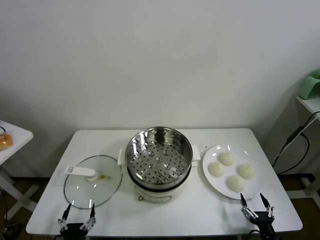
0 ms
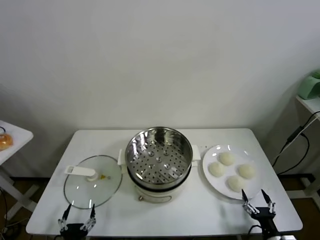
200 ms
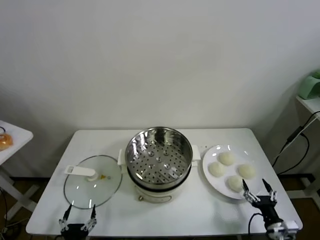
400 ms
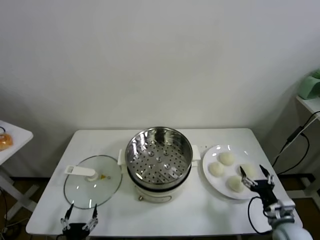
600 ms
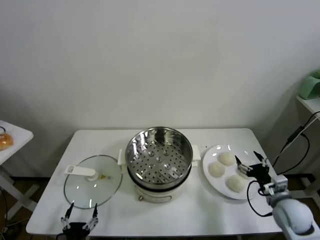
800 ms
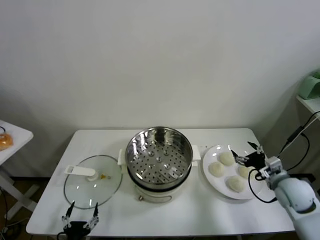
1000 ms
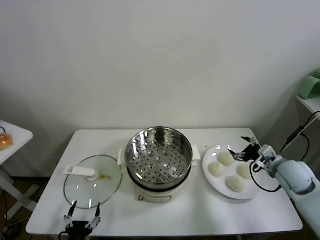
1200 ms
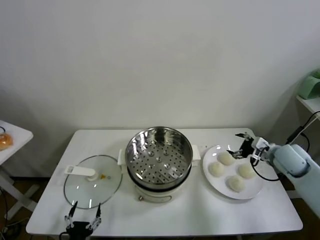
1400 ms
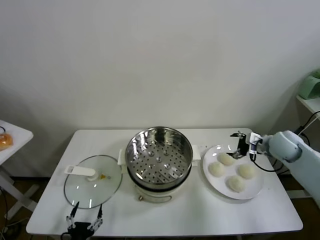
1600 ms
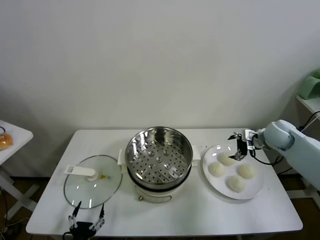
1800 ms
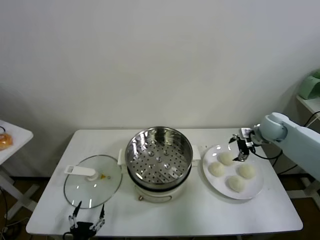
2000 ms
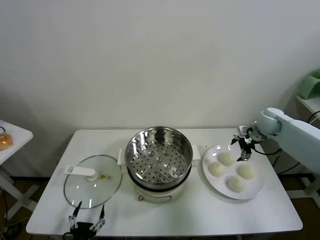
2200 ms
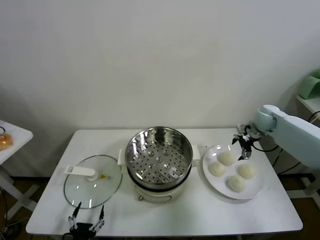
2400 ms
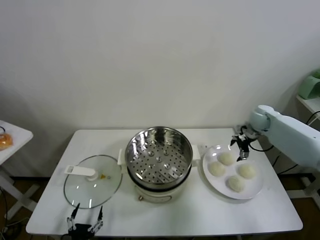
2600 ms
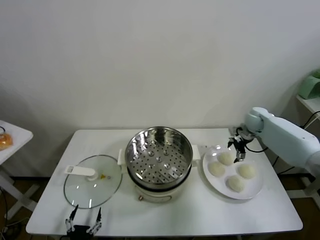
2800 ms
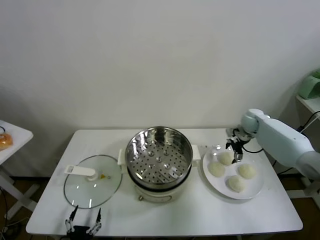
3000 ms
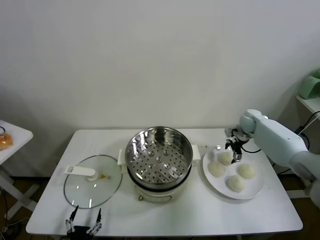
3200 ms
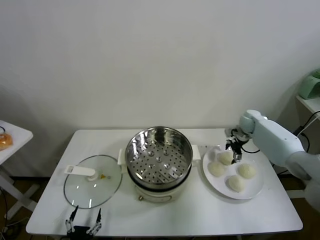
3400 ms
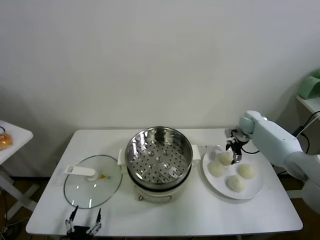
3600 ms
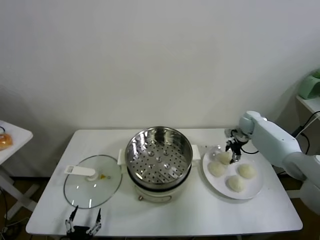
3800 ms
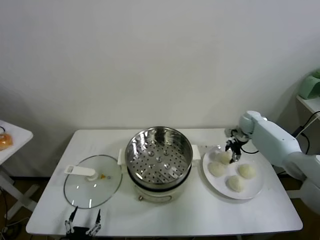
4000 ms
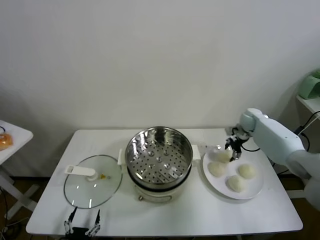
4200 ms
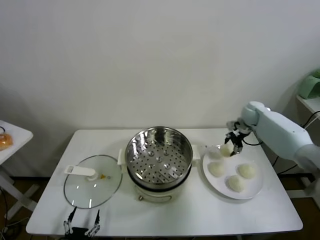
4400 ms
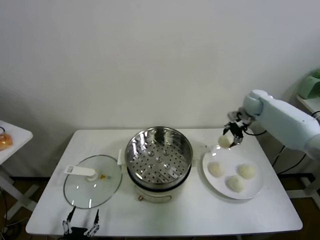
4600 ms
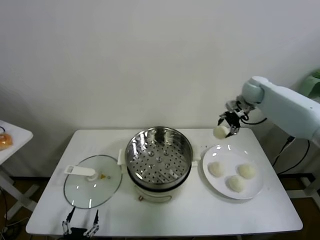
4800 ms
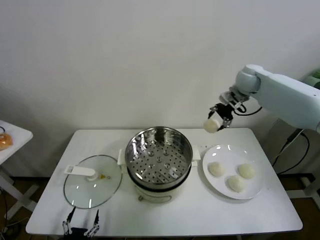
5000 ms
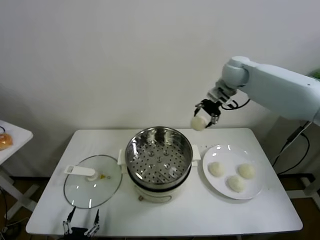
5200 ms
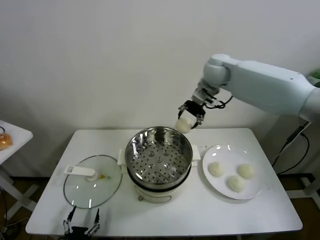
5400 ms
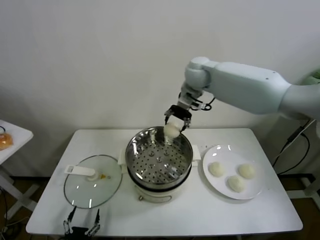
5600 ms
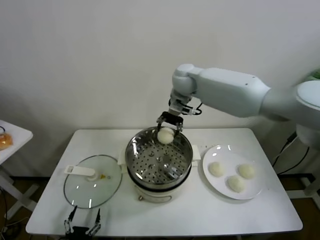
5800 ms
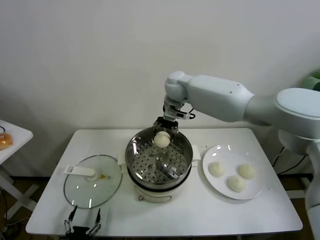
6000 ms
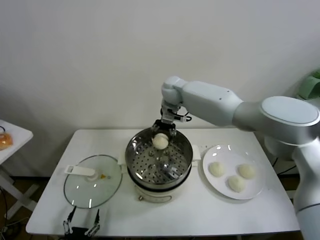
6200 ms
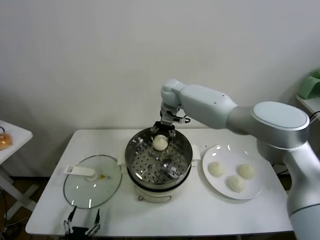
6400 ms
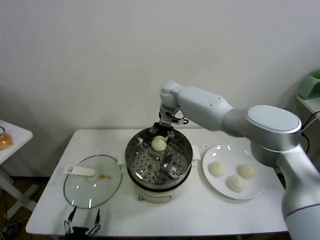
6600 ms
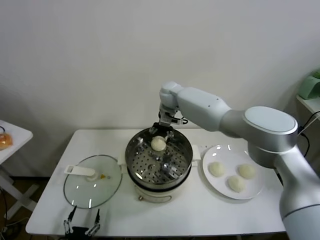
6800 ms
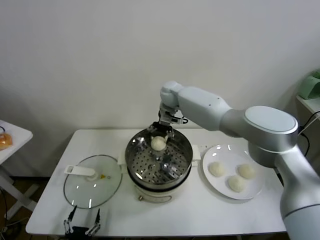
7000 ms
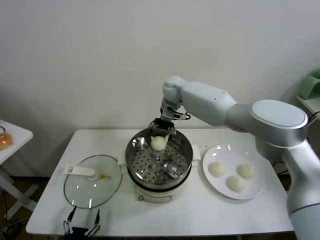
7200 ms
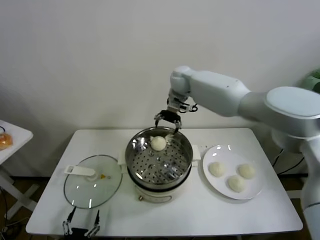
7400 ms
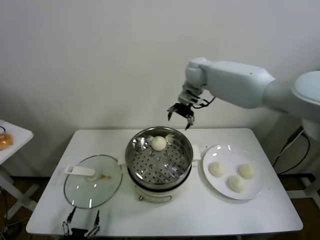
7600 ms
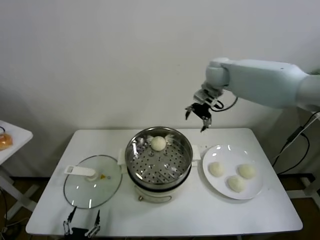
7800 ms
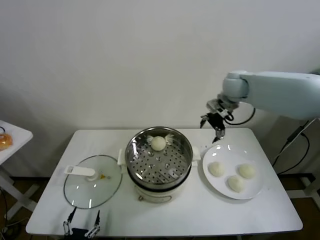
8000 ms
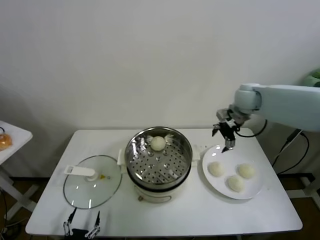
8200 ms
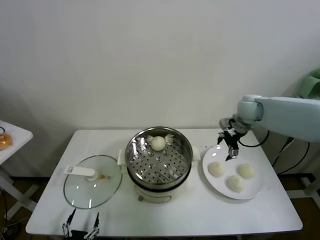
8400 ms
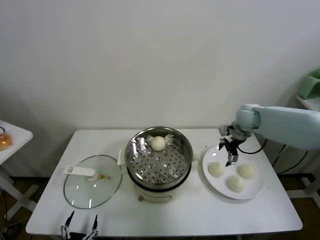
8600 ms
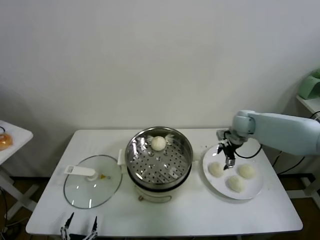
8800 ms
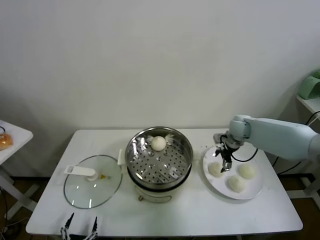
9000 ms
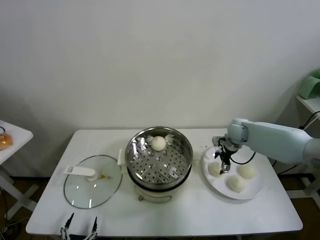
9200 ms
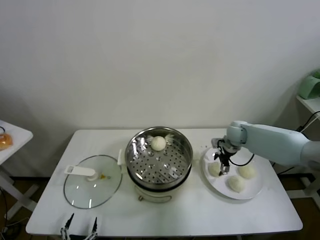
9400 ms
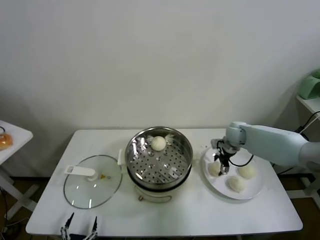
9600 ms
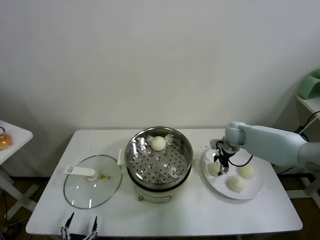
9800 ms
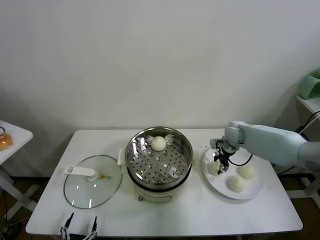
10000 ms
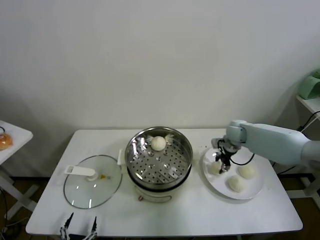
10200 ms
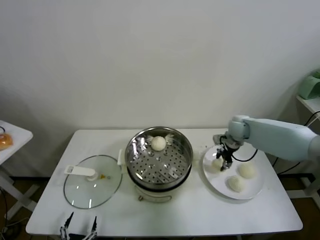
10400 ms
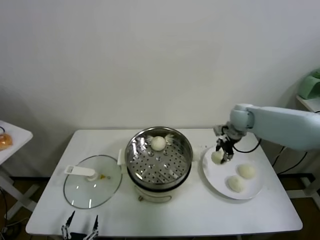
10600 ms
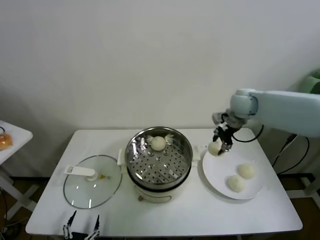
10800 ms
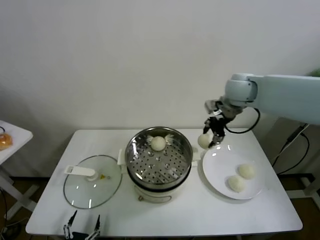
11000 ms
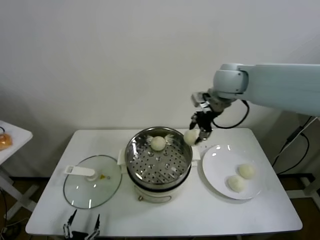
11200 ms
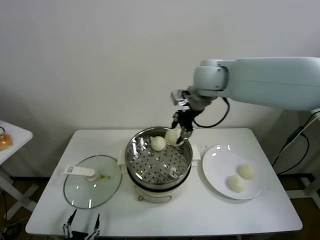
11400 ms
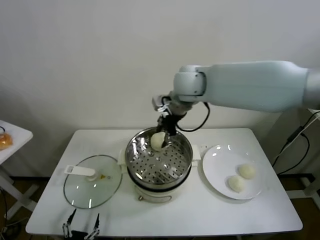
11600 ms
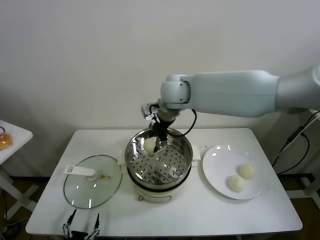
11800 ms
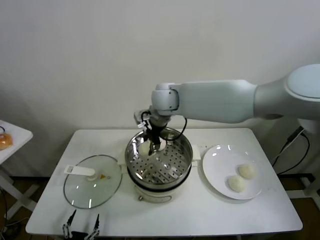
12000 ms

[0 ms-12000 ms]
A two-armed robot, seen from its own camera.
Task of the whole recording: take steamed baozi put them in steamer.
Step, 0 ms to 3800 ms: Grasp the baozi in the plate with right gripper.
Step, 4000 ms to 7000 ms: Place the baozi on the steamer with right gripper.
Step, 7200 ms to 9800 ms: Grasp the baozi in the plate with right gripper.
1600 ms to 3000 ms: The right gripper moves forward, about 15 cm.
3000 ms to 4400 ms: The right gripper shifts some 5 cm upward, and closes.
4400 ms to 6000 ms: The right gripper is displaced to the left by approximately 30 cm.
6000 ms to 7600 ms: The right gripper shifts some 10 cm to the right and upward, and opens.
7600 ms to 9000 ms: The right gripper moves downward and to the right, roughly 25 cm.
9000 ms to 10400 ms: The right gripper closes up.
10400 ms to 12000 ms: The right gripper is displaced to the left and upward by roughly 35 cm.

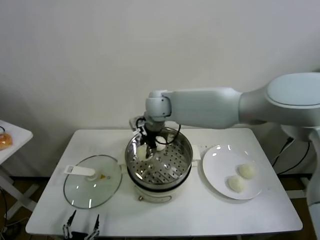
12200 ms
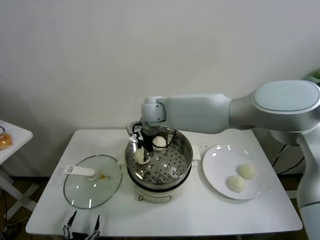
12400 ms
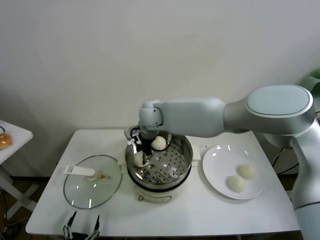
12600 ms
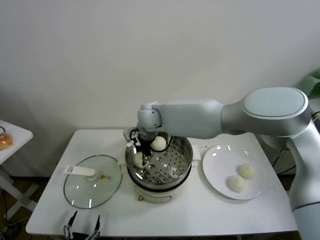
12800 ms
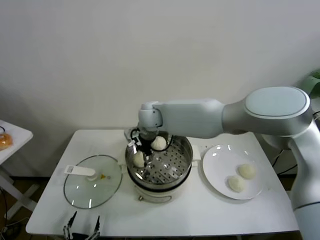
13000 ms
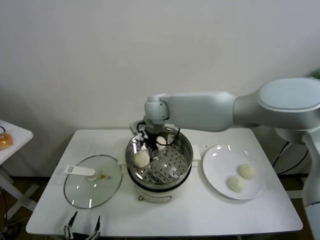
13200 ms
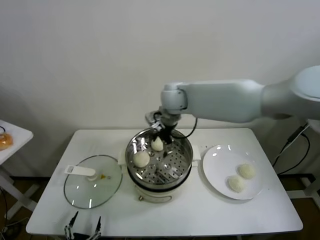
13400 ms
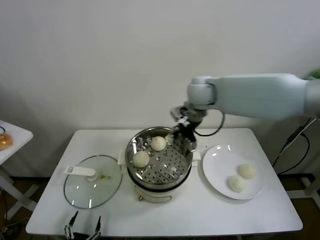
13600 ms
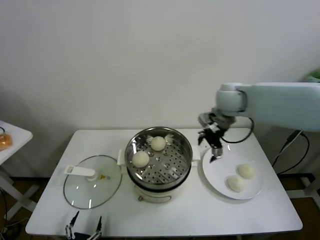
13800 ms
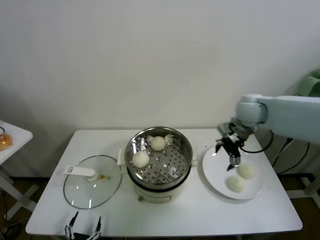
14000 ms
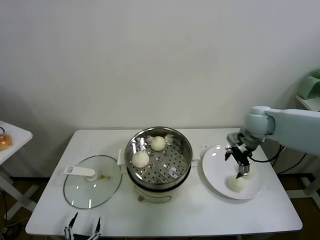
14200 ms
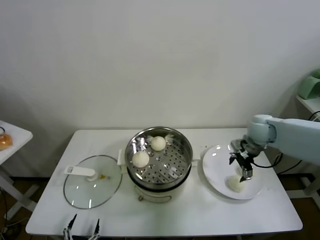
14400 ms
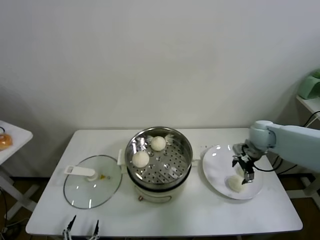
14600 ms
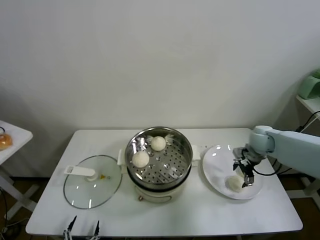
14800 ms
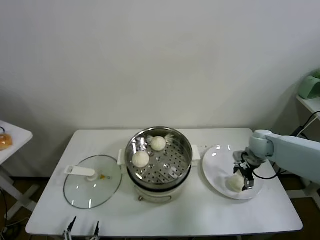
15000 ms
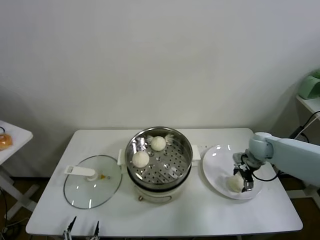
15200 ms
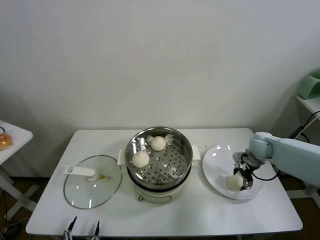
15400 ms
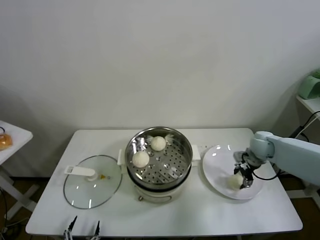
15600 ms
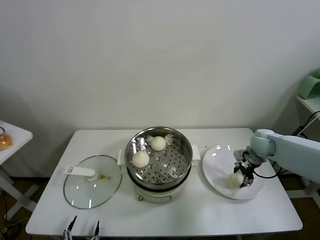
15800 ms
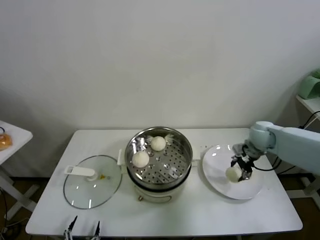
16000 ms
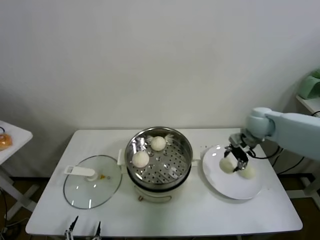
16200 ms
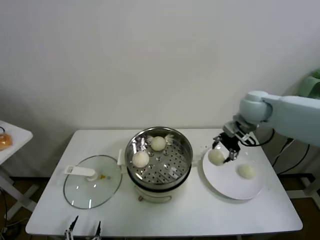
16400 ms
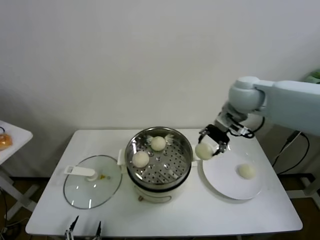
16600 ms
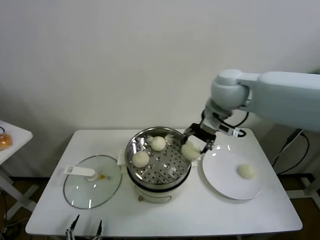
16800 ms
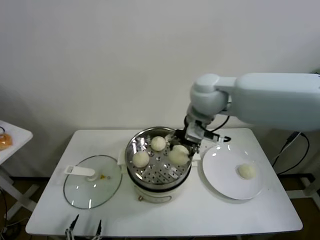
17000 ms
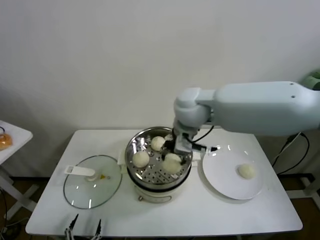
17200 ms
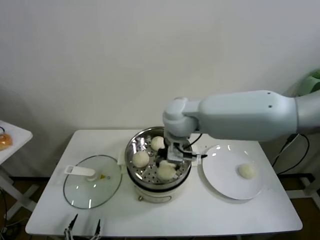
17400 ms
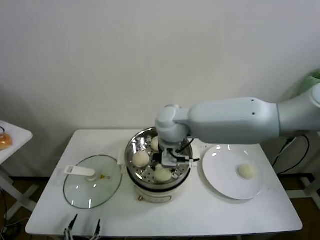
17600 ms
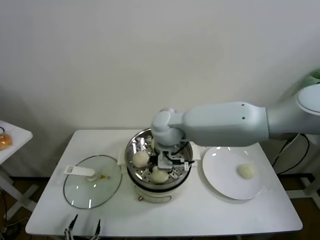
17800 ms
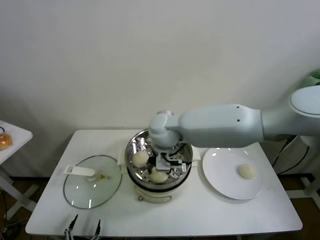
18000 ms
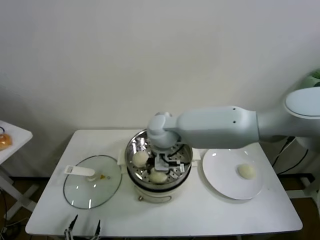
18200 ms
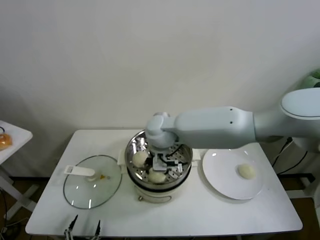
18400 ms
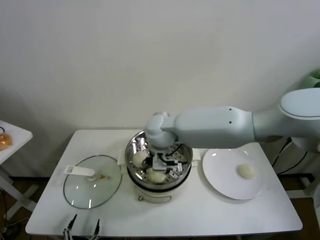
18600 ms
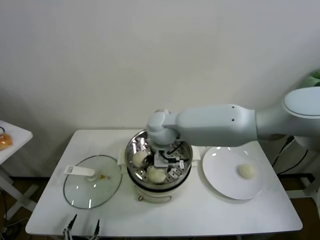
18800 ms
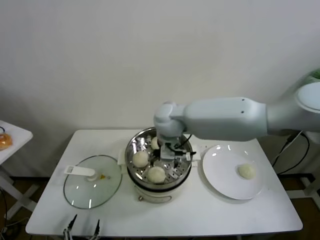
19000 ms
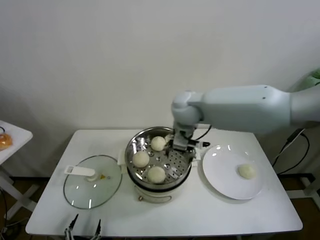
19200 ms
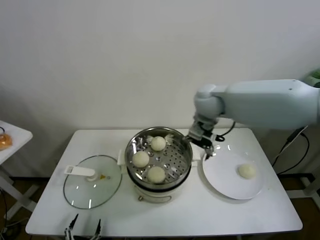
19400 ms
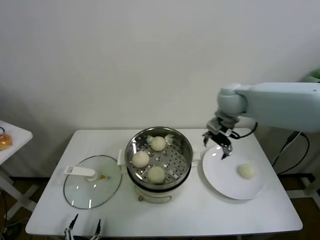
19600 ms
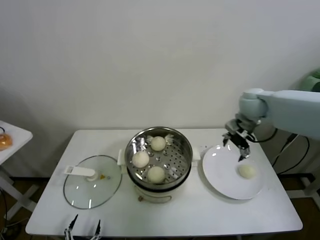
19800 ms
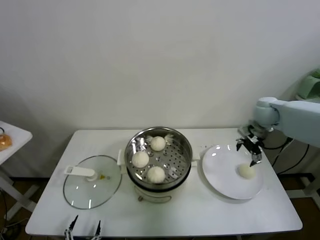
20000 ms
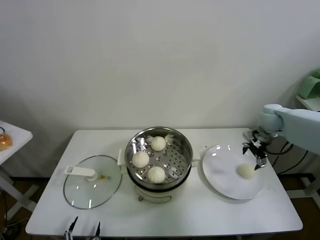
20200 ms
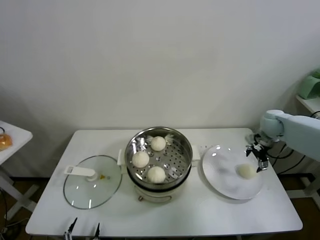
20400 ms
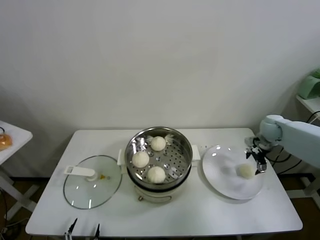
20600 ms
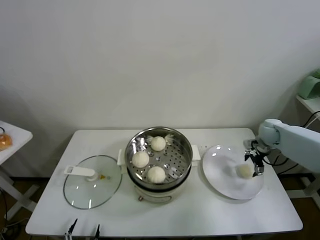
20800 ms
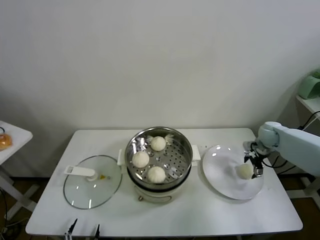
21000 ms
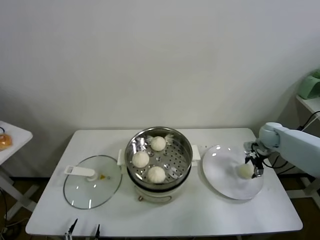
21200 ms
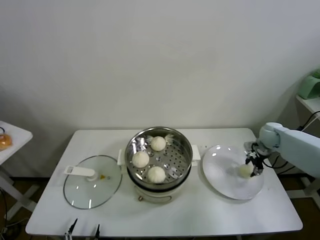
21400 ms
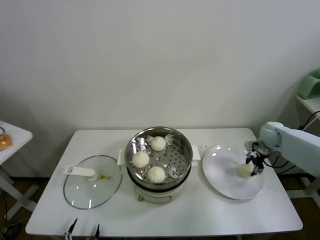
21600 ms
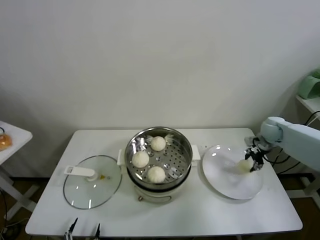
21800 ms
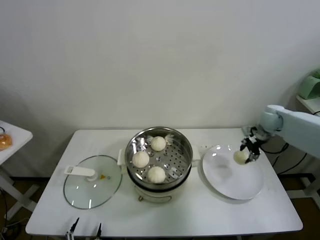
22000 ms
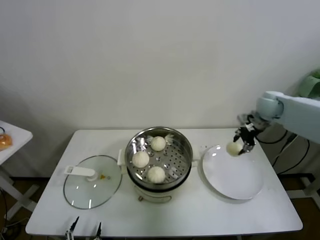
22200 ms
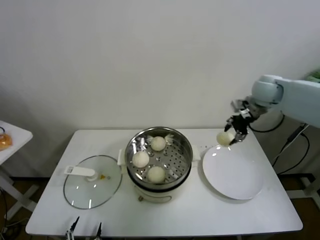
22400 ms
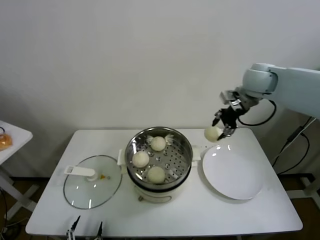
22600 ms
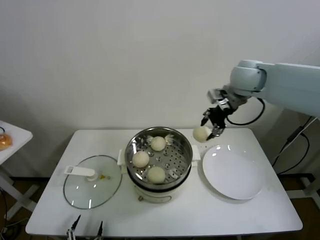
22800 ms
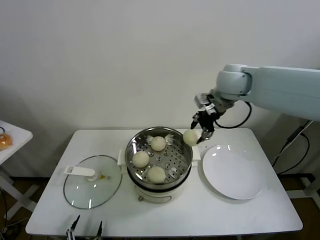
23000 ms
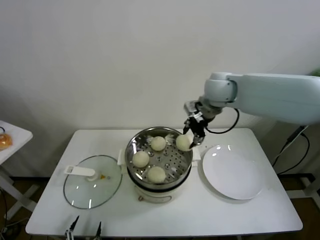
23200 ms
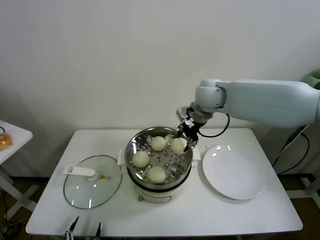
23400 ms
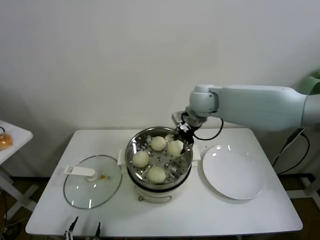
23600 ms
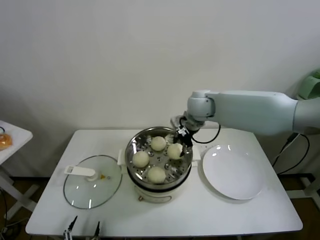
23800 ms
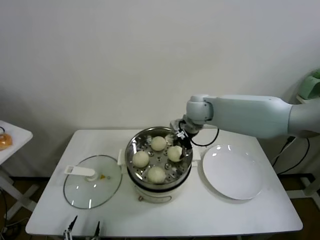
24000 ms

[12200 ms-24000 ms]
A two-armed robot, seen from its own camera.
Task of the whole recording: take steamed baozi put them in steamer.
Step, 13200 ms to 15400 ms: Grasp the baozi in the plate with right gripper.
Step, 15600 ms to 18600 ms: Place the baozi on the steamer with right gripper.
Step, 19000 ms to 21400 ms: Grasp the baozi in the plate with right gripper.
12200 ms to 13600 ms: The right gripper is displaced to the right by about 15 cm, and opens.
13600 ms to 15200 ms: The right gripper travels to the right and downward by some 30 cm.
15200 ms to 16600 ms: The right gripper goes some 30 cm upward and to the left, and closes its fingers.
16600 ms to 18200 ms: The right gripper is displaced to the left and downward by approximately 25 cm.
18200 ms to 19600 ms: The right gripper travels to the right by approximately 20 cm, and opens.
19600 ms to 21000 ms: The right gripper travels to the right and downward by about 30 cm.
21000 ms to 22600 ms: The right gripper travels upward and to the left by approximately 30 cm, and closes up.
22600 ms to 24000 ms: The right gripper is displaced to the left and downward by some 20 cm.
